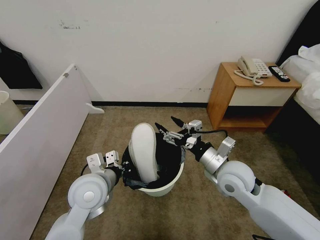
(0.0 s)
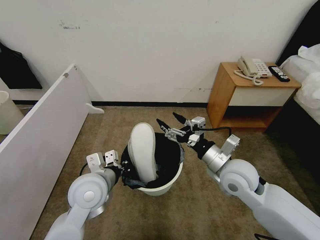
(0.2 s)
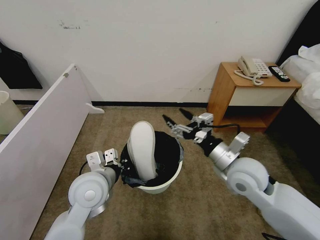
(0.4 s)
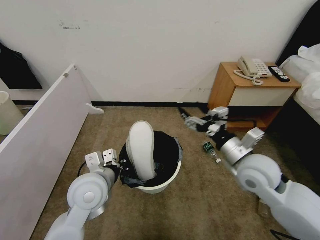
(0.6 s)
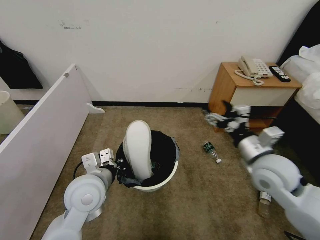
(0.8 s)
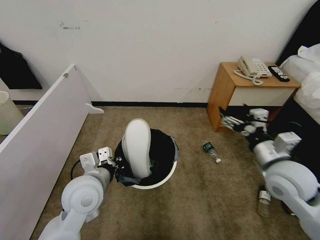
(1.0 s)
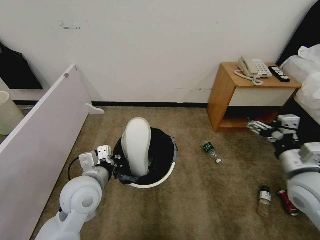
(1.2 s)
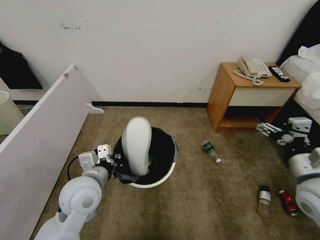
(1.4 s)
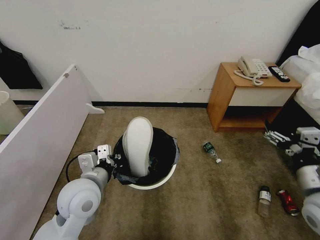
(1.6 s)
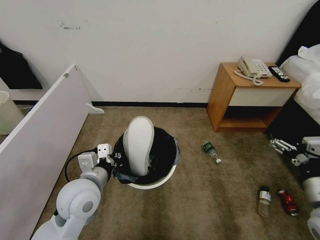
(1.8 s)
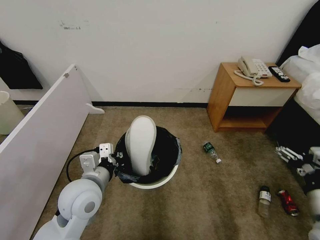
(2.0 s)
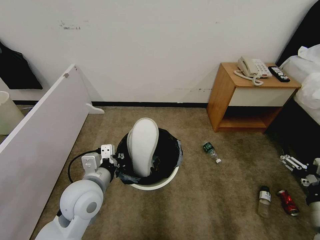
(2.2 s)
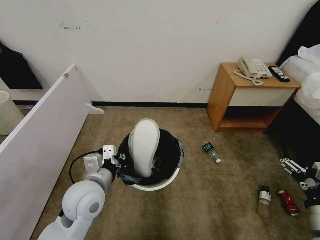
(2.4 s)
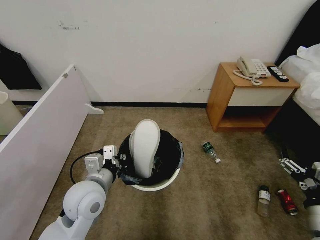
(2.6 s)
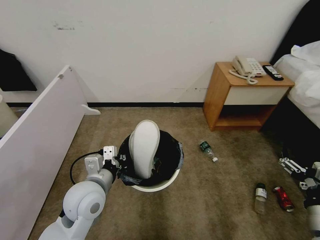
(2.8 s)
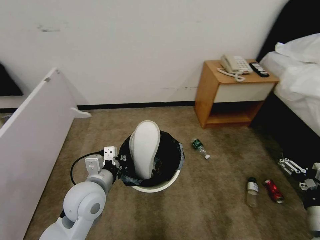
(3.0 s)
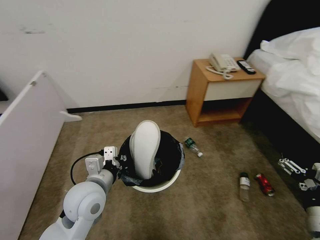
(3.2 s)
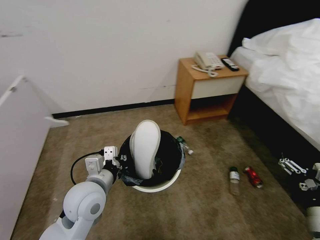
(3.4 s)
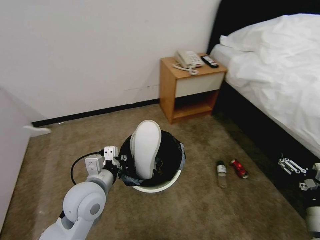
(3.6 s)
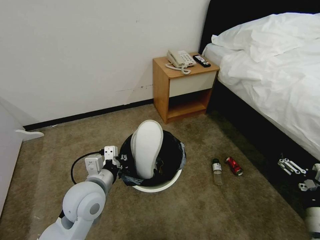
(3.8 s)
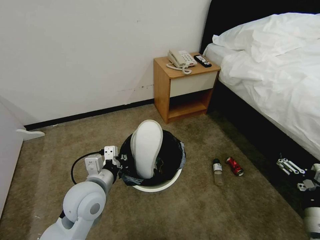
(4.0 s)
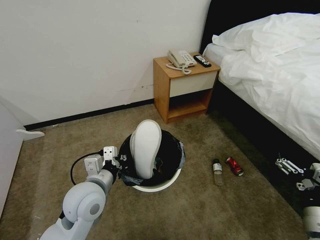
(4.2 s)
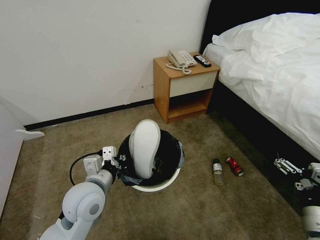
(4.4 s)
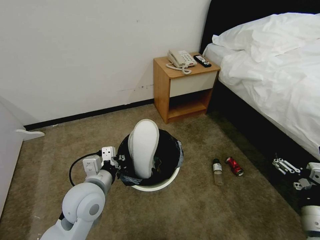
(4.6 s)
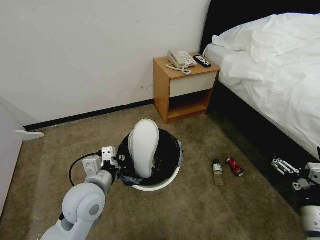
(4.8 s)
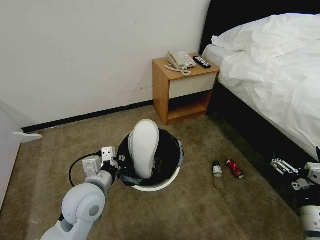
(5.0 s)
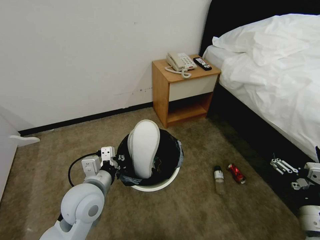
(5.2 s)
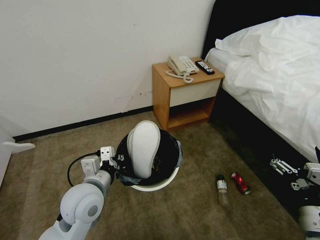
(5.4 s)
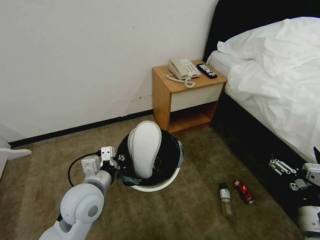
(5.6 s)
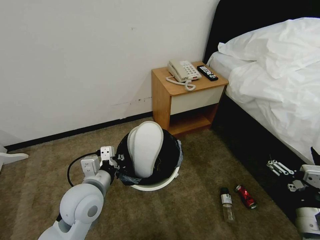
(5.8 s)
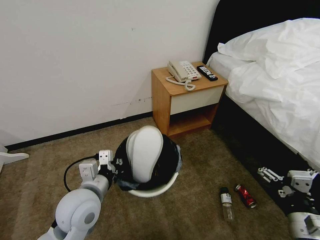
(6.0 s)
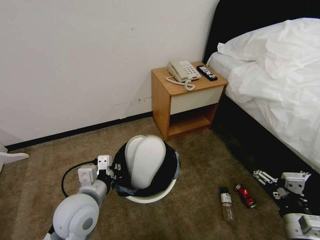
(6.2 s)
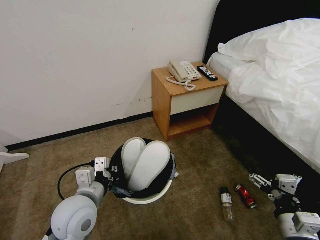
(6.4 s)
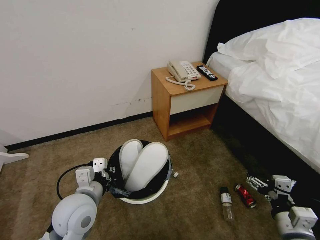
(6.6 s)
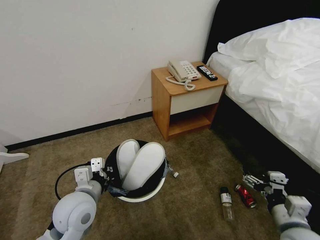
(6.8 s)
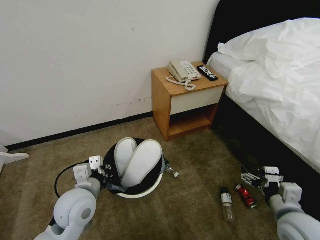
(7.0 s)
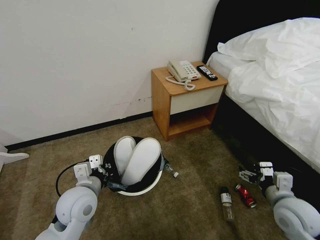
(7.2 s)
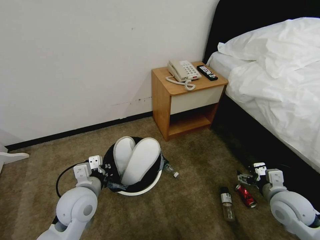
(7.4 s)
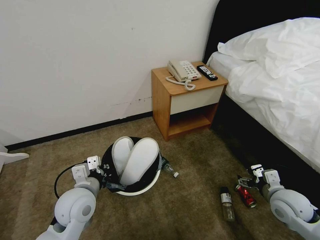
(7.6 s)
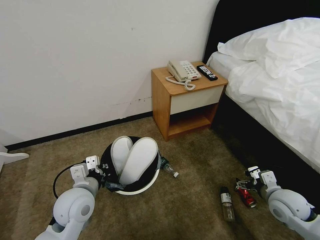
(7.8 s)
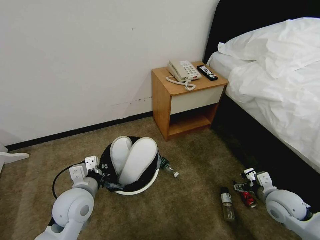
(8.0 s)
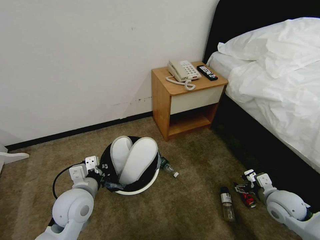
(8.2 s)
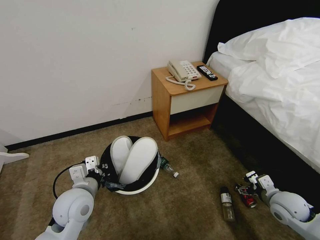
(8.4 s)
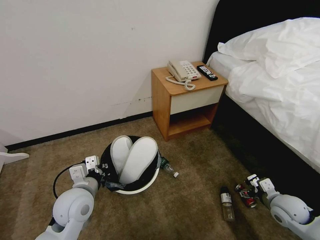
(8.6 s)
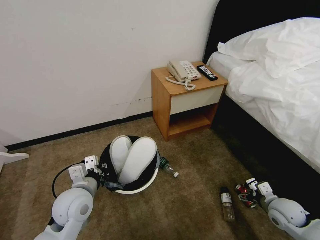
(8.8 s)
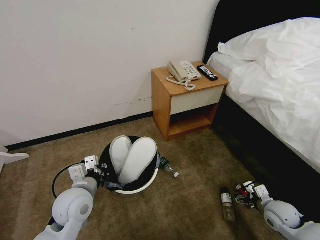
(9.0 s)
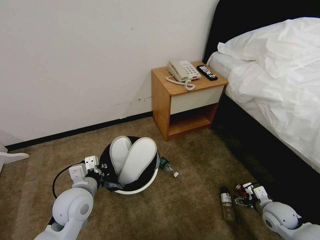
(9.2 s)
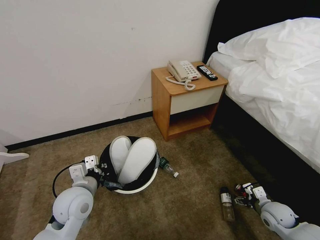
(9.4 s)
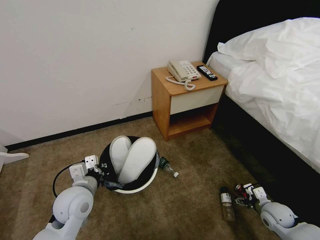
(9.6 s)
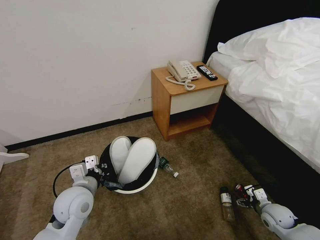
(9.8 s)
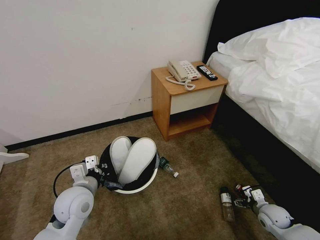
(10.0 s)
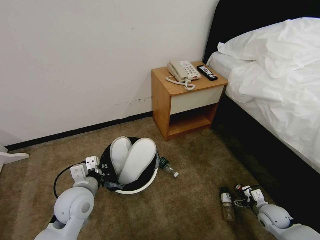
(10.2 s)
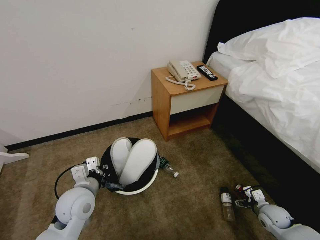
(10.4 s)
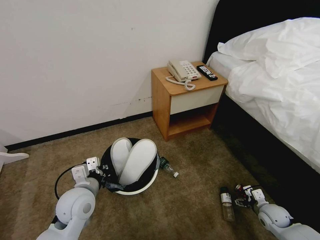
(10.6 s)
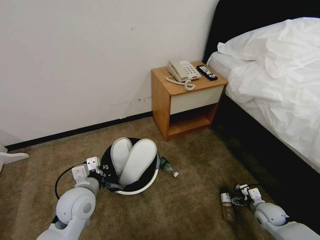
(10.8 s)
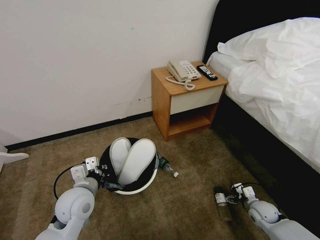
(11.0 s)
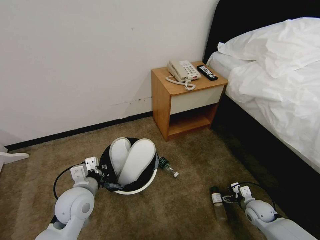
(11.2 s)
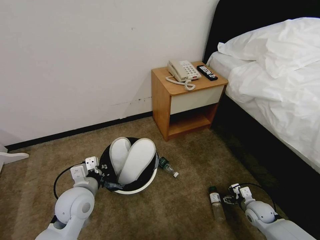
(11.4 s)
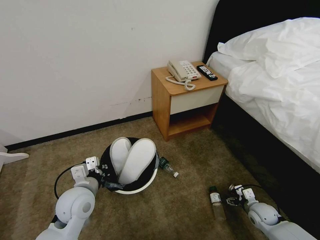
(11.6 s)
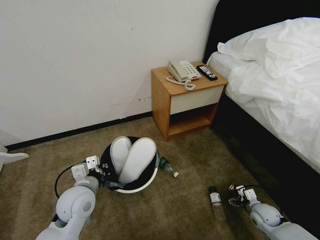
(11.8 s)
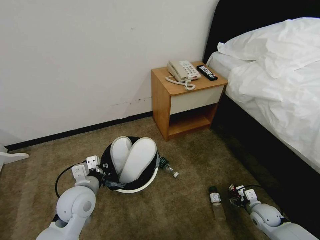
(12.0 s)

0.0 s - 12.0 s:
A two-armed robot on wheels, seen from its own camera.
Task of the whole recording: Pick up the trash bin, then pick up the garbage from the floor and place it into the trash bin.
0.0 s - 1.6 s: The right gripper moves to the right and backward, approximately 20 cm.
1.6 s - 3.0 s: The right gripper is displaced backward and downward by approximately 10 cm.
6.0 s - 7.6 s: The right gripper shifts about 5 cm downward.
7.6 s - 9.0 s: The right gripper moves forward and to the right, about 15 cm.
9.0 s - 10.4 s: The right gripper is displaced downward by roughly 10 cm.
10.4 s - 12.0 s: The right gripper travels downward by some 5 cm.

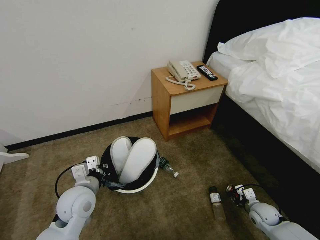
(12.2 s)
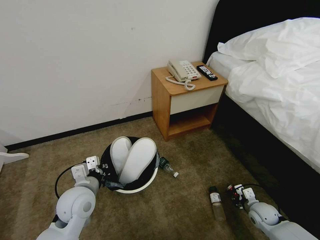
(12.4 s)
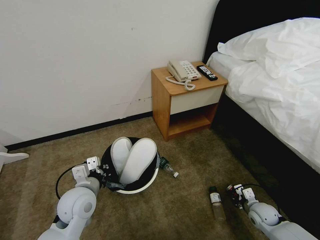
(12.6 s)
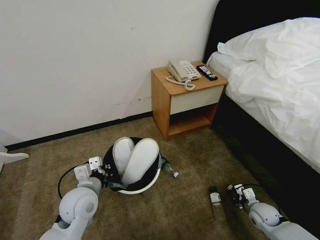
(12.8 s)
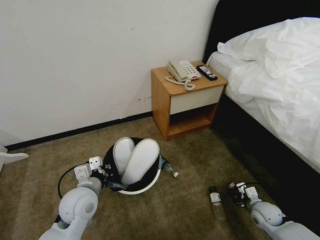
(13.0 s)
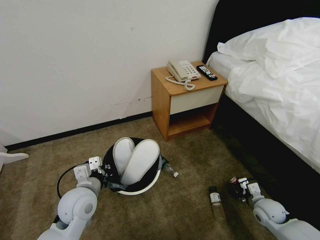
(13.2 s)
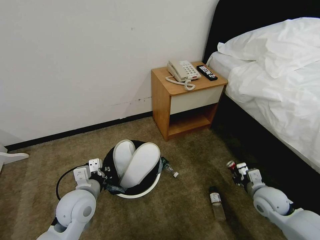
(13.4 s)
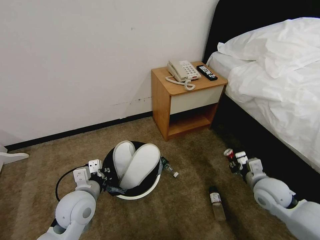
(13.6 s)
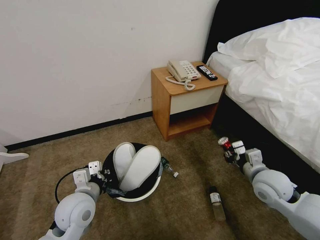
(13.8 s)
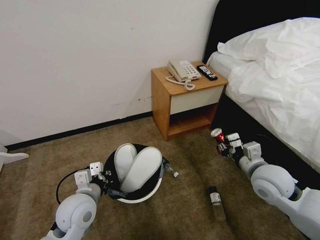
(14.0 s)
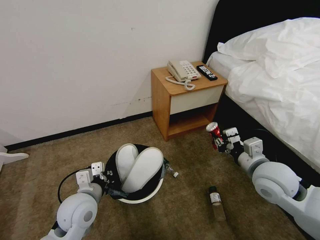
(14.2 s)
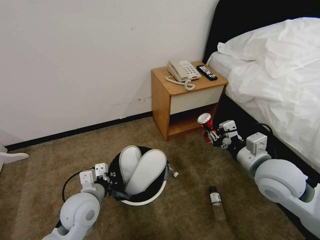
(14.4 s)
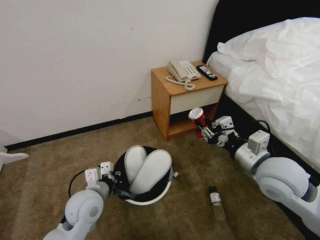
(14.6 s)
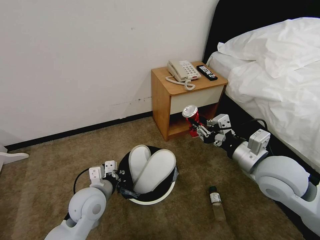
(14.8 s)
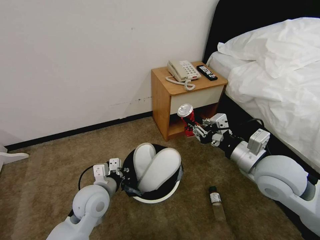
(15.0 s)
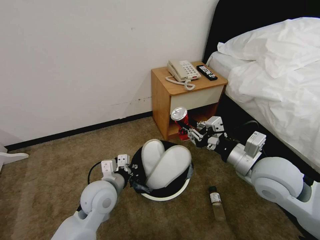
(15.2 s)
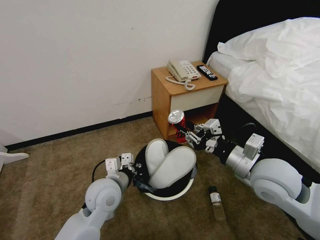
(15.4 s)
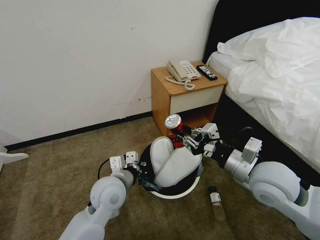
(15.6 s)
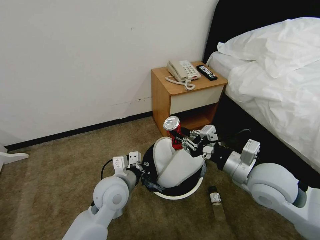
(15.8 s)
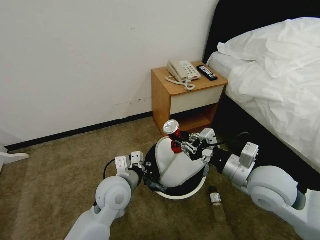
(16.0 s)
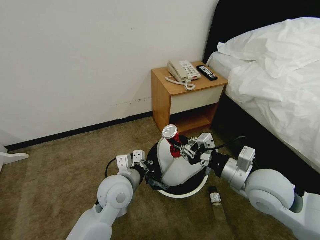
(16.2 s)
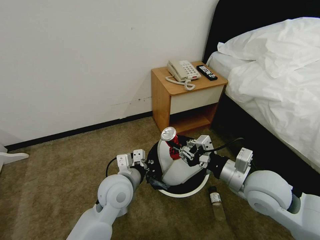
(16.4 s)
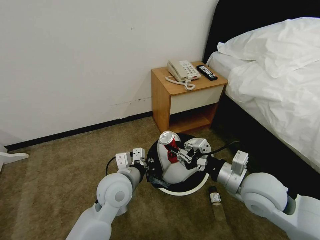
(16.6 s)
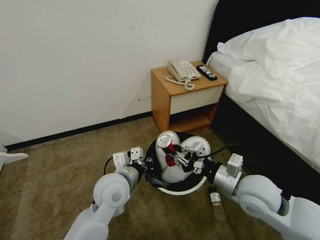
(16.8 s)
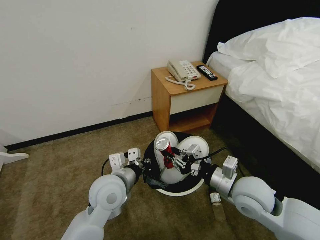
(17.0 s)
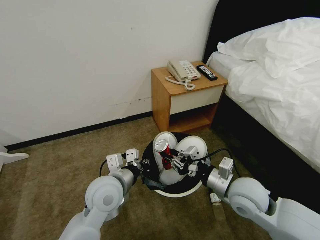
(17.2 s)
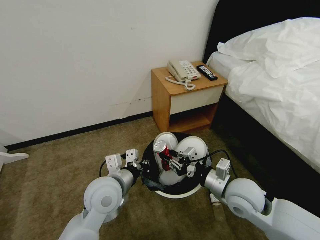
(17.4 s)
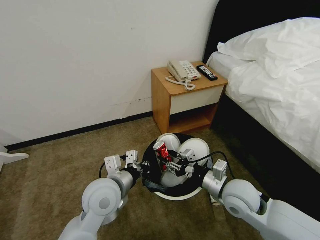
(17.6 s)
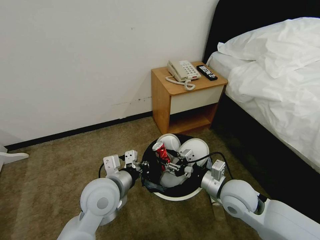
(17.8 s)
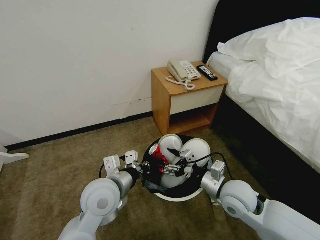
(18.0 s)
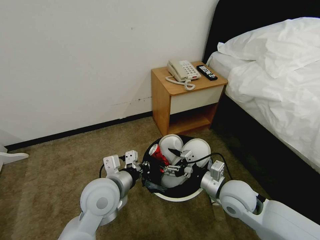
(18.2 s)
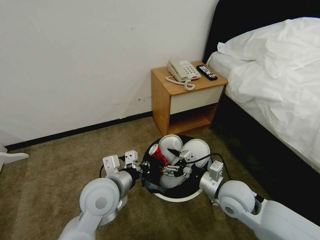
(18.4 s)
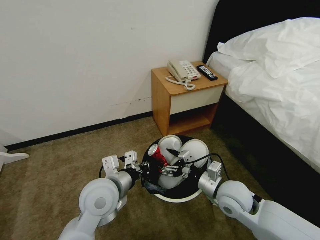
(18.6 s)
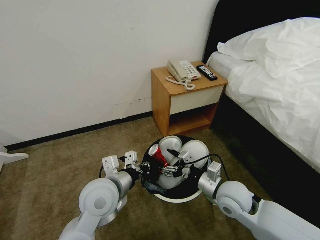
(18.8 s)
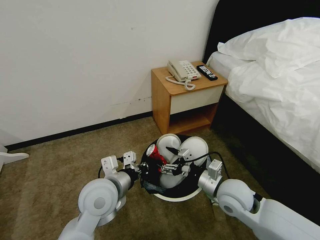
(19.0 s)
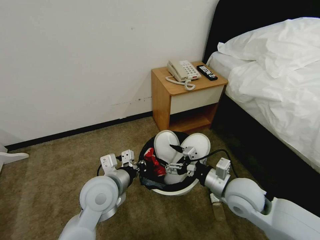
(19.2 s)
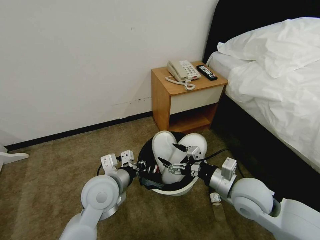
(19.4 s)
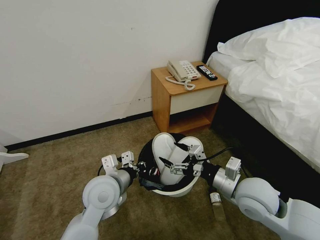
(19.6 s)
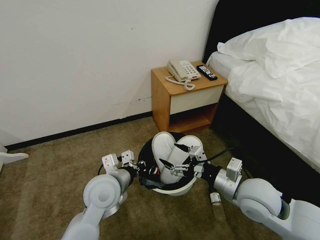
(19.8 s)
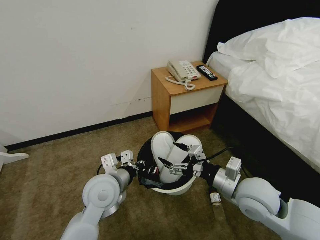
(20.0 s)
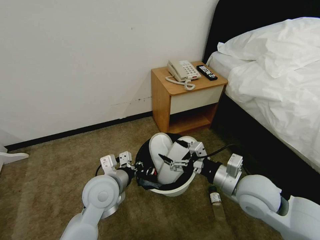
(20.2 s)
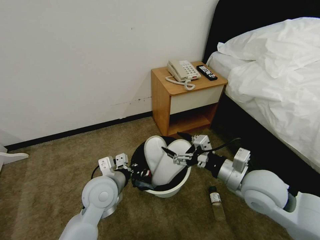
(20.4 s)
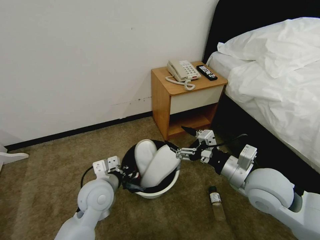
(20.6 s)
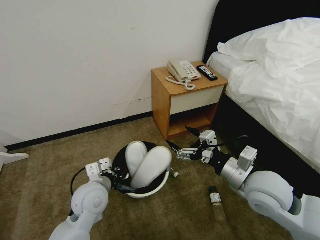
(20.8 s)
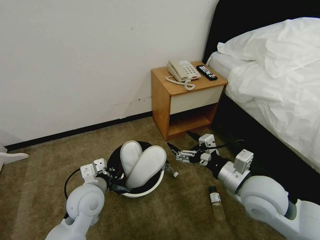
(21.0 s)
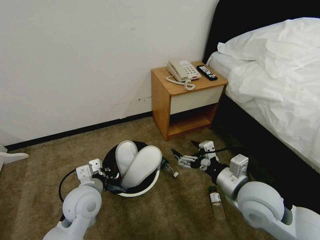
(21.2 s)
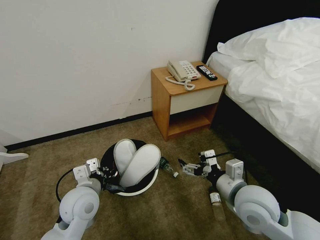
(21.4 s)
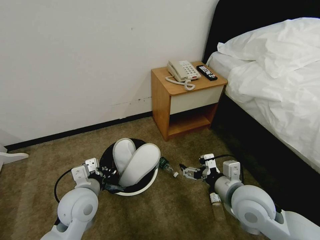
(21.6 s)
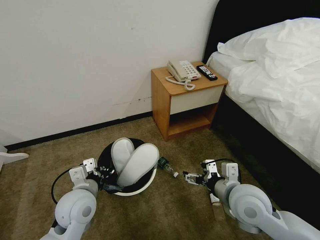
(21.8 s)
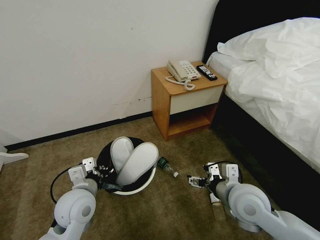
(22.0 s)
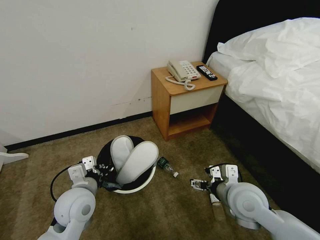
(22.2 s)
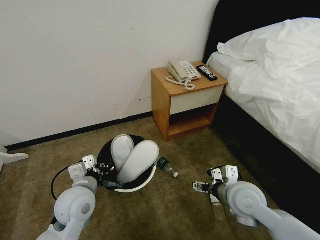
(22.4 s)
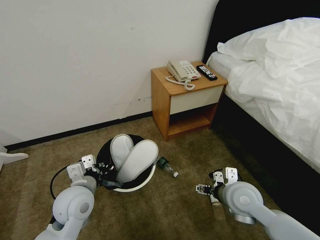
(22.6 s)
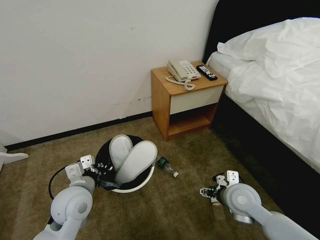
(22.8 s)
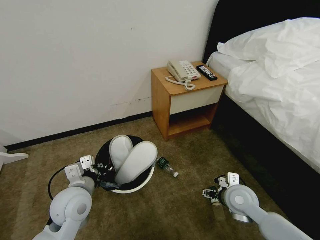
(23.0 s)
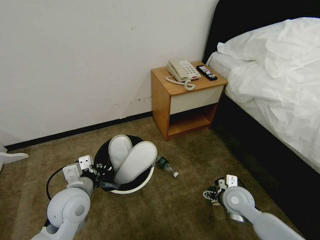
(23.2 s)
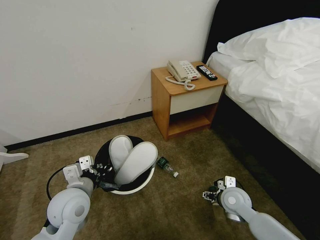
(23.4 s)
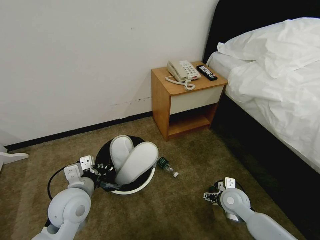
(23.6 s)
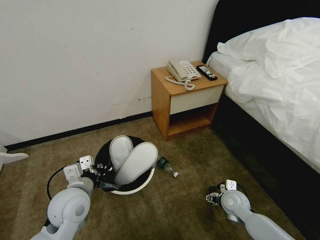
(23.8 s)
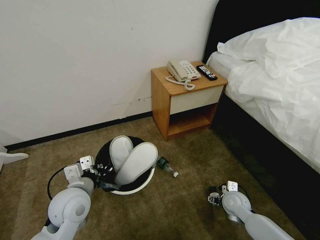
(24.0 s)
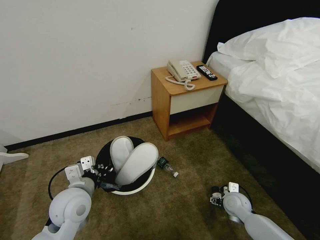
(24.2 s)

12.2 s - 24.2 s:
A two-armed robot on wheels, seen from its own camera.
Task of the whole recording: Pick up the trash bin, then pick up the garbage from the floor and place it into the trash bin.
12.2 s - 13.8 s: The grippers move only a little.
13.8 s - 15.2 s: The right gripper travels upward by some 30 cm.
15.2 s - 16.6 s: The left gripper shifts approximately 10 cm to the right.
16.6 s - 18.2 s: The right gripper shifts about 10 cm downward, and opens its fingers.
18.2 s - 19.8 s: The right gripper is displaced upward by some 5 cm.
19.8 s - 21.2 s: The left gripper heads to the left, covering some 5 cm.
21.2 s - 22.6 s: The right gripper is displaced downward by about 5 cm.
22.6 s - 24.2 s: The right gripper is displaced downward by approximately 15 cm.
